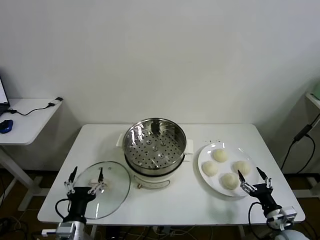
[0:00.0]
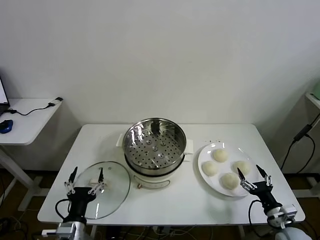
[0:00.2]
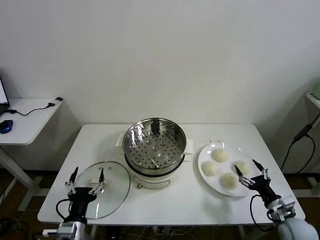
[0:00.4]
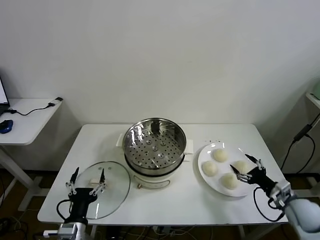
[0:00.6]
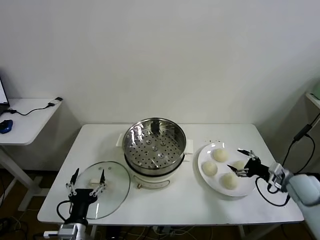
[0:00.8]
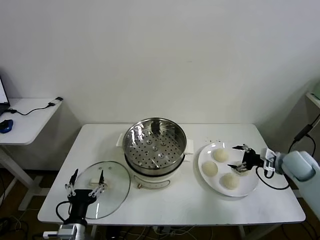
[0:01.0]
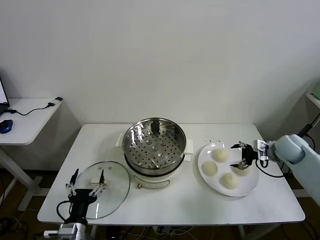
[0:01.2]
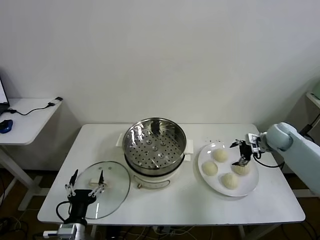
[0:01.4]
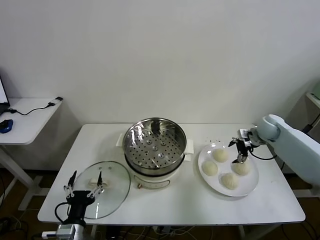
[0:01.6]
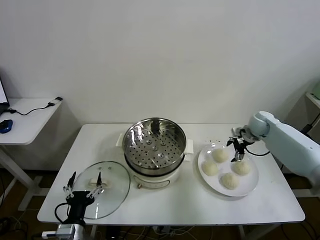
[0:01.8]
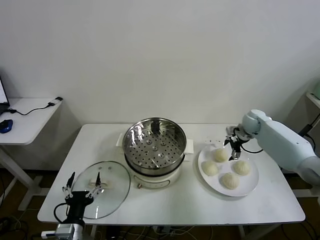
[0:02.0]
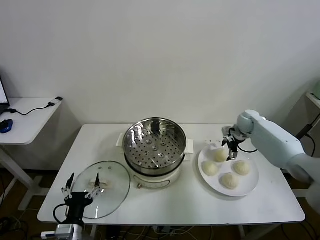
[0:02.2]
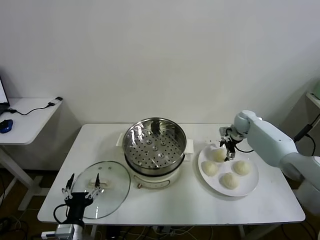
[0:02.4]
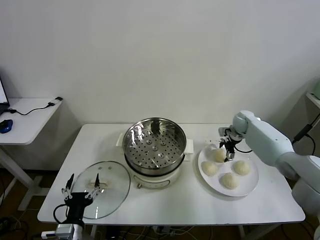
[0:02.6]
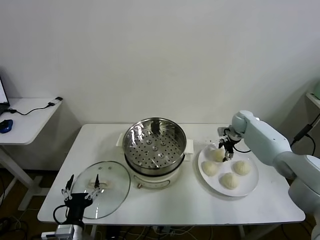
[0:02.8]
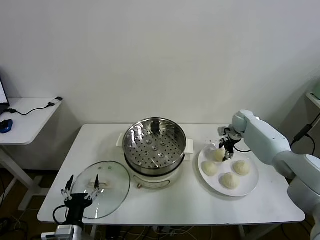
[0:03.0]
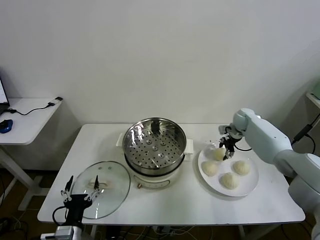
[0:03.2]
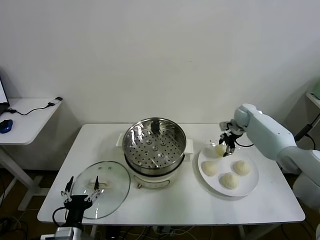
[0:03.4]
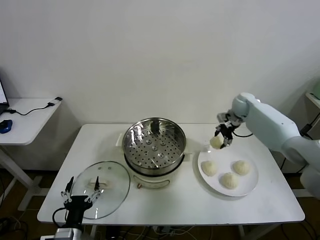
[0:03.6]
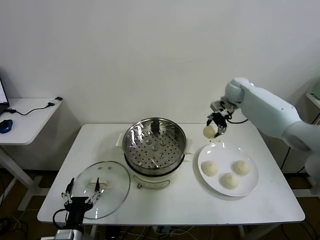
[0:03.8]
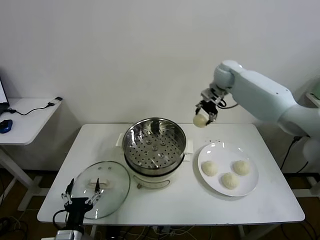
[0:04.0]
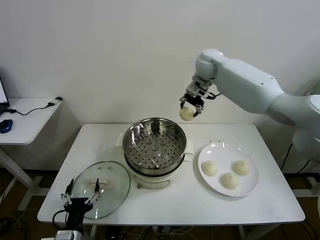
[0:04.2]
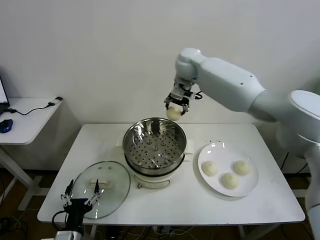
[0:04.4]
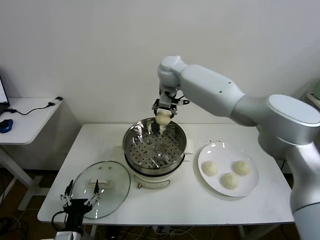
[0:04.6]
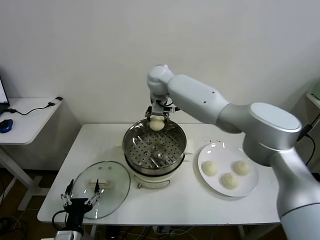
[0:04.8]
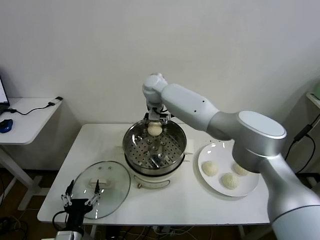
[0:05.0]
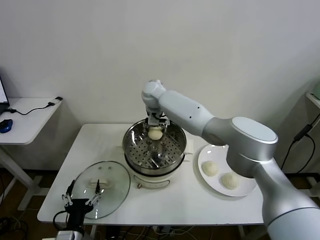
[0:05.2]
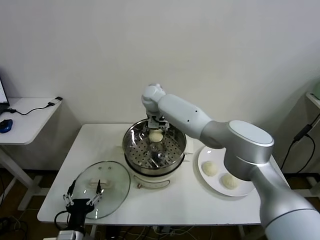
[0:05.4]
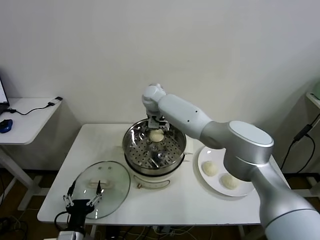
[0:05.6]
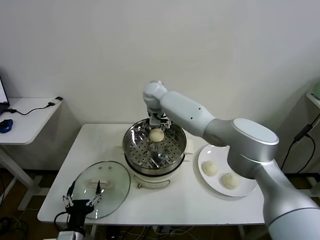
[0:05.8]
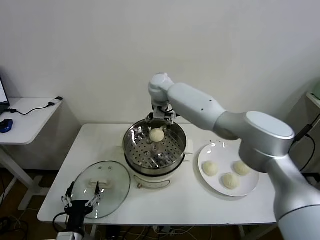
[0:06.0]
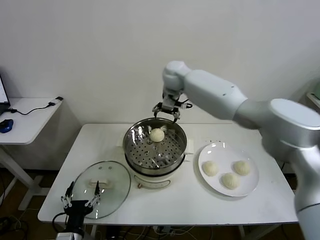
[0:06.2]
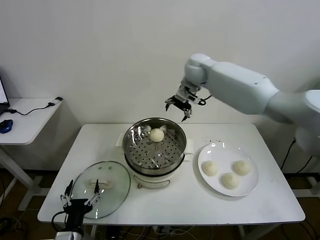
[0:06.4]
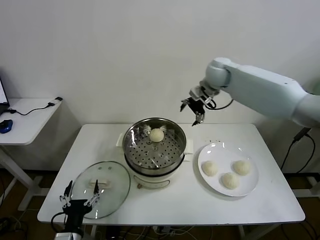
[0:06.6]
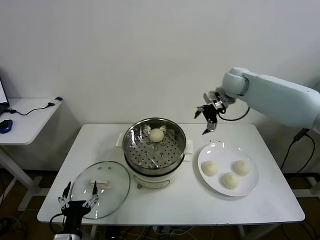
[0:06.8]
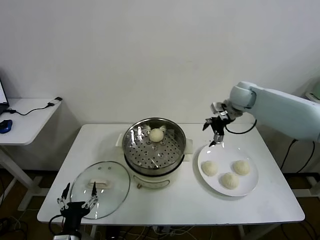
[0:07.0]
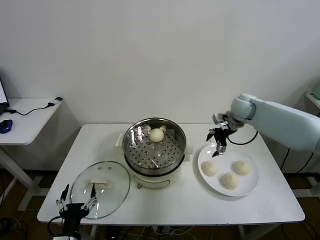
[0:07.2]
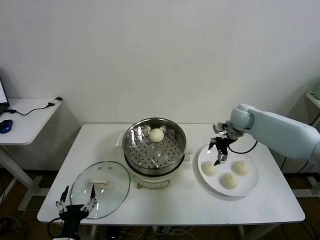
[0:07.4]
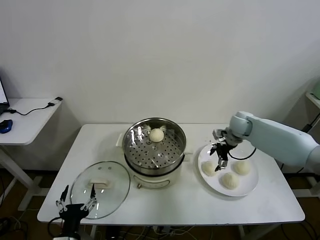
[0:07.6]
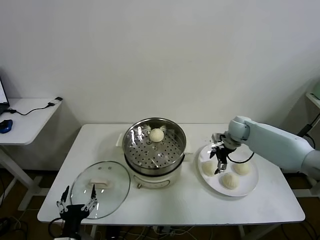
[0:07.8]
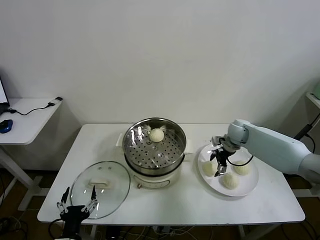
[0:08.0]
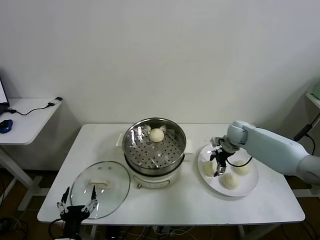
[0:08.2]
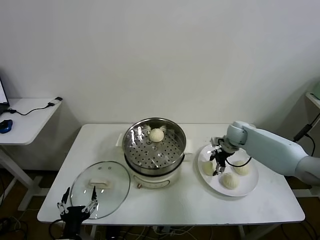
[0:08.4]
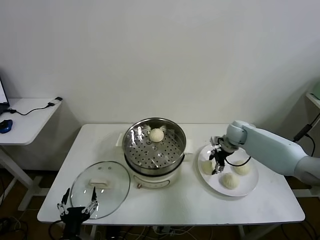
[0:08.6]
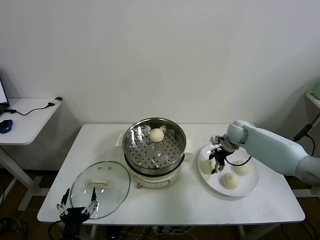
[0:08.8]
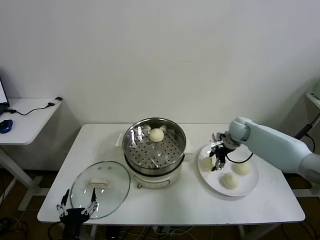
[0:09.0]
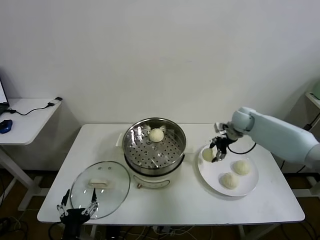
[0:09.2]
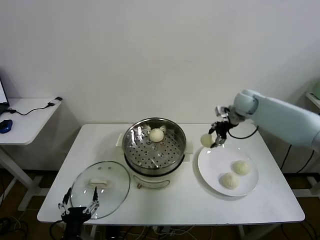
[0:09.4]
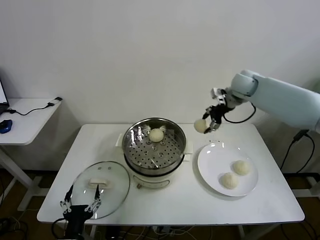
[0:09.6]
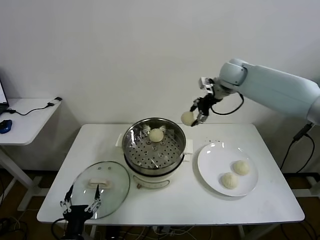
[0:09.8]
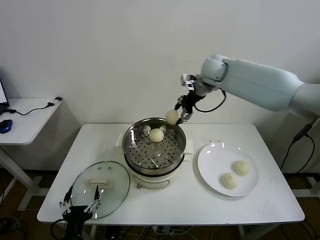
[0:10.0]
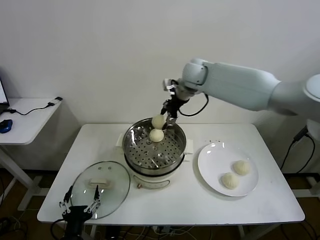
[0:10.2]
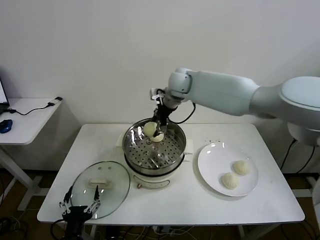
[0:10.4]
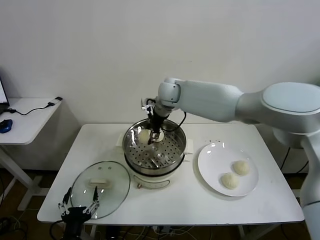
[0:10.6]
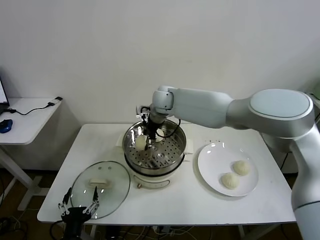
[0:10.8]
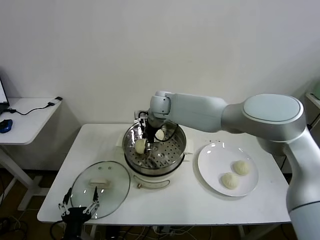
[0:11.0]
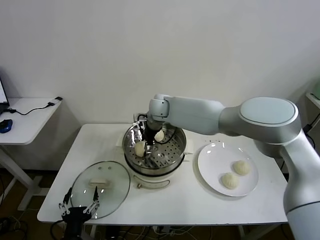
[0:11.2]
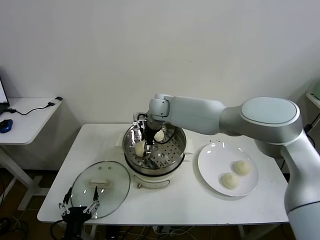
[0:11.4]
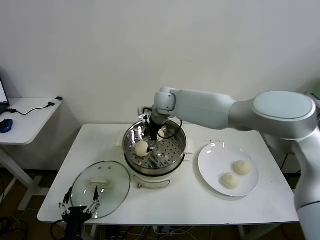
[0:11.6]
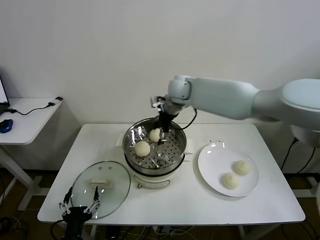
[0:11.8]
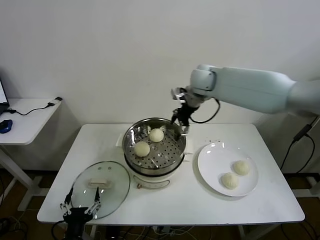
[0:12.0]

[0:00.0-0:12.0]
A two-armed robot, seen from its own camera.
Task of the whole recording: take steamed baozi put them in steamer then cover it.
Step, 0:00.0 to 0:03.0: Grasp the baozi in the plate with right gripper.
Step, 0:03.4 to 0:06.0: Place the baozi on the steamer with right gripper.
Step, 0:06.2 to 0:08.6: Grasp the baozi in the plate with right gripper.
Step, 0:08.8 to 0:11.8: Place the baozi on the steamer with right gripper.
0:01.6 to 0:03.0: The right gripper moves forward, roughly 5 cm, and closes.
0:03.0 to 0:04.4: The right gripper moves to the left and upward, about 40 cm.
0:04.4 to 0:06.0: The right gripper shifts approximately 5 cm downward, and opens up.
0:06.0 to 0:07.6: The right gripper goes approximately 35 cm to the right and downward.
0:07.6 to 0:09.0: The right gripper closes up.
0:09.0 to 0:10.4: The right gripper goes roughly 30 cm to the left and upward.
0:10.4 to 0:12.0: The right gripper travels to the right by roughly 10 cm, and opens up.

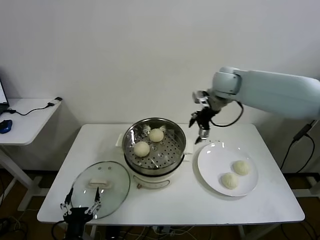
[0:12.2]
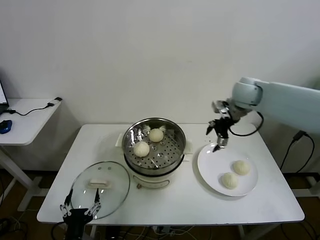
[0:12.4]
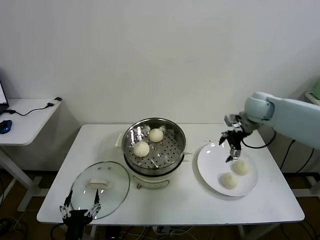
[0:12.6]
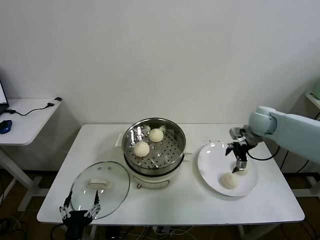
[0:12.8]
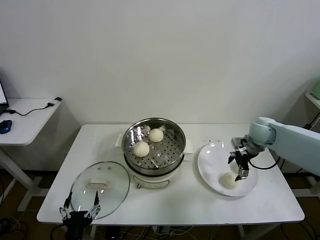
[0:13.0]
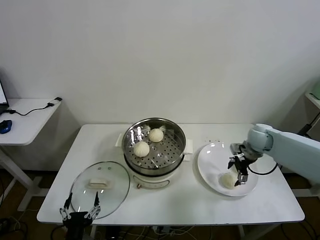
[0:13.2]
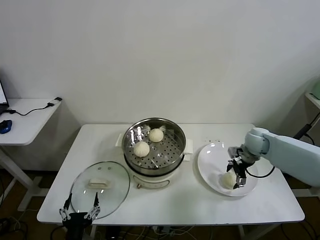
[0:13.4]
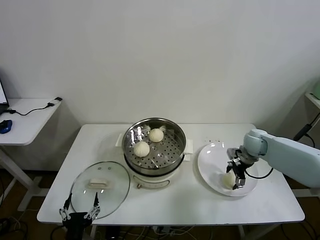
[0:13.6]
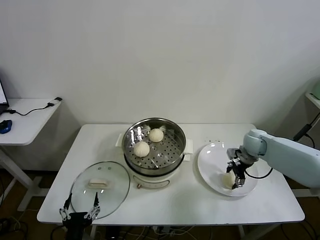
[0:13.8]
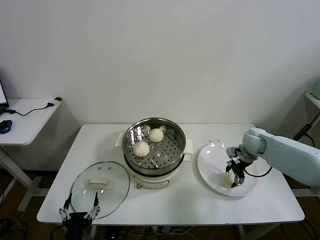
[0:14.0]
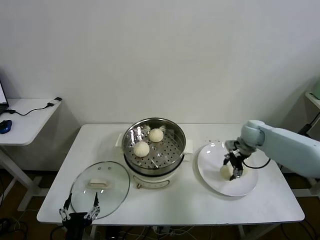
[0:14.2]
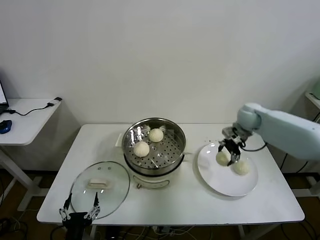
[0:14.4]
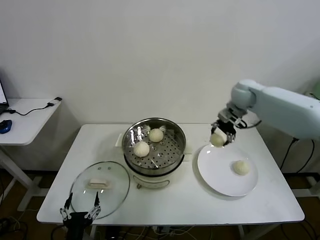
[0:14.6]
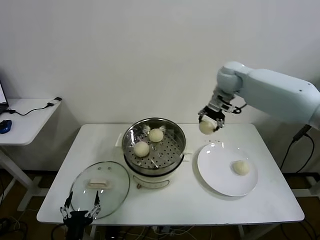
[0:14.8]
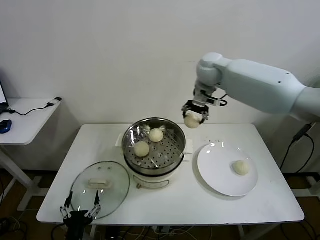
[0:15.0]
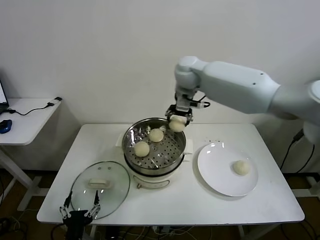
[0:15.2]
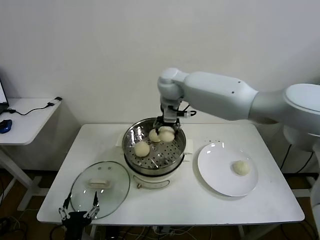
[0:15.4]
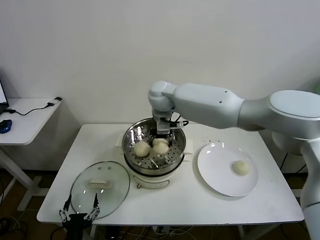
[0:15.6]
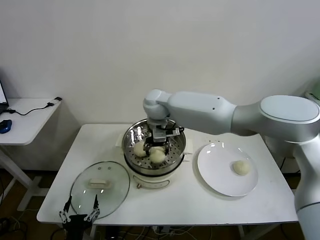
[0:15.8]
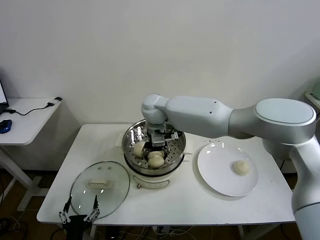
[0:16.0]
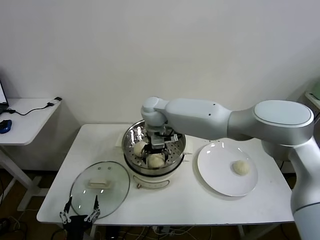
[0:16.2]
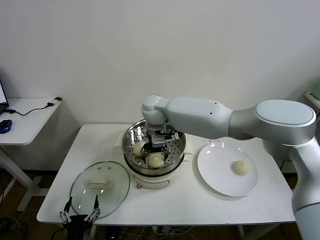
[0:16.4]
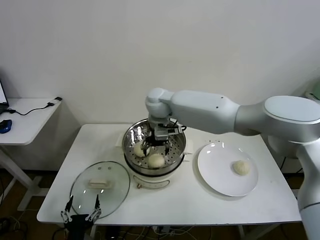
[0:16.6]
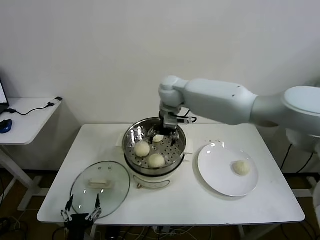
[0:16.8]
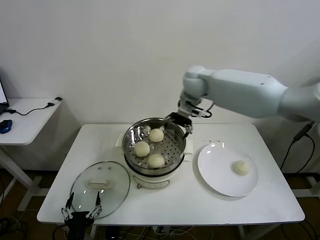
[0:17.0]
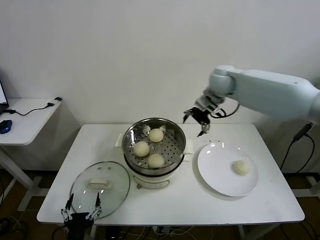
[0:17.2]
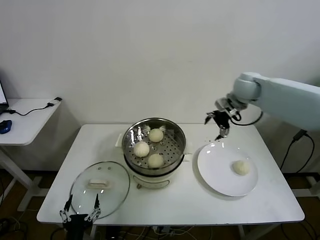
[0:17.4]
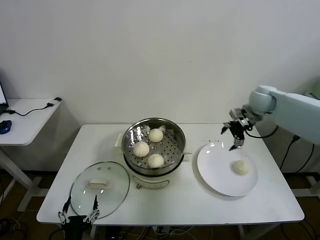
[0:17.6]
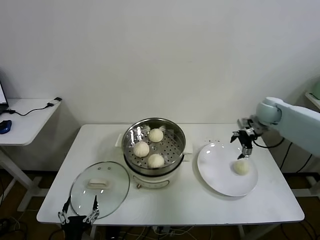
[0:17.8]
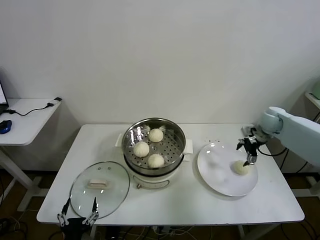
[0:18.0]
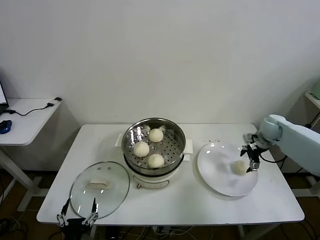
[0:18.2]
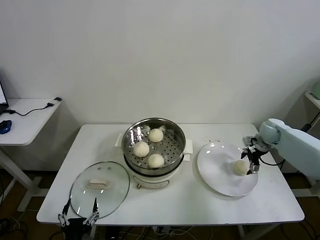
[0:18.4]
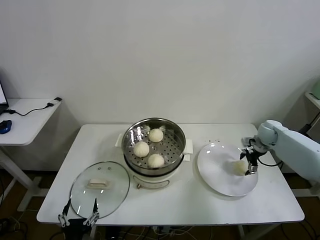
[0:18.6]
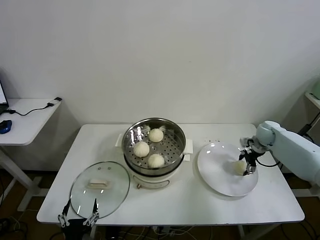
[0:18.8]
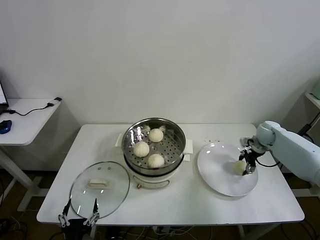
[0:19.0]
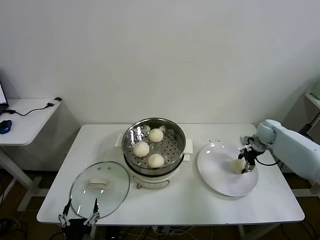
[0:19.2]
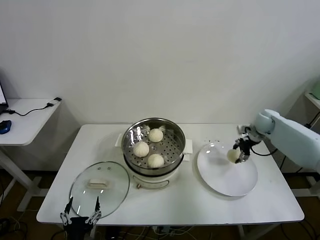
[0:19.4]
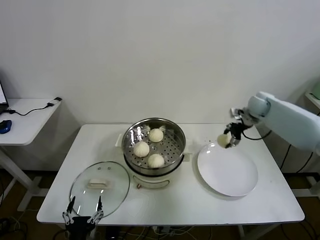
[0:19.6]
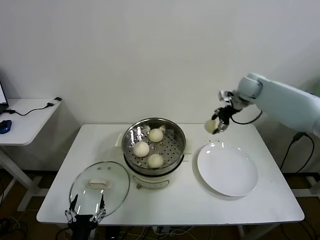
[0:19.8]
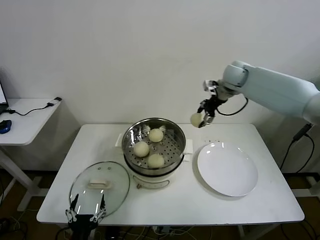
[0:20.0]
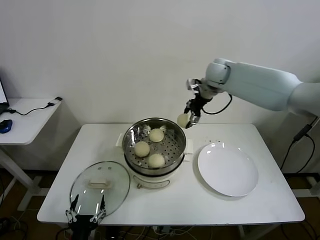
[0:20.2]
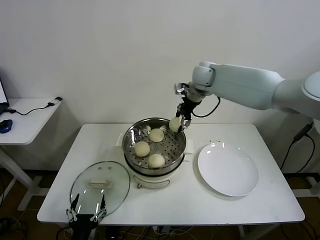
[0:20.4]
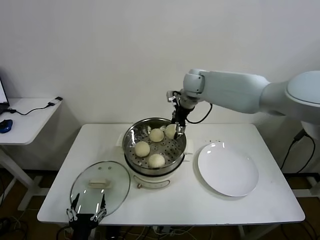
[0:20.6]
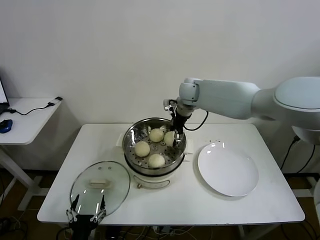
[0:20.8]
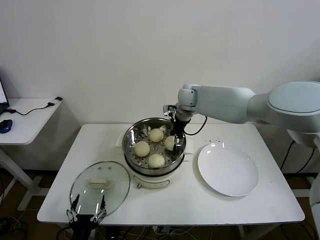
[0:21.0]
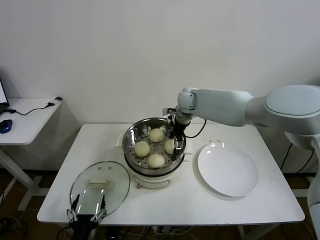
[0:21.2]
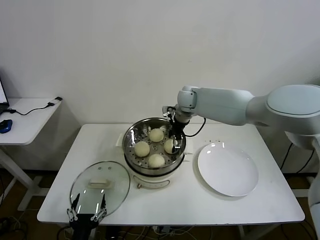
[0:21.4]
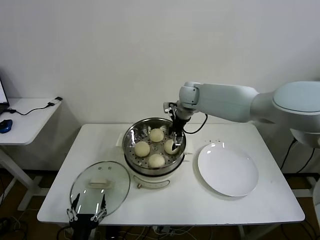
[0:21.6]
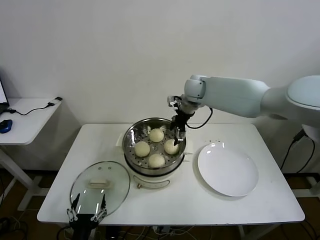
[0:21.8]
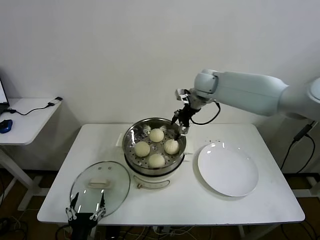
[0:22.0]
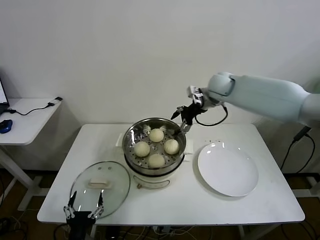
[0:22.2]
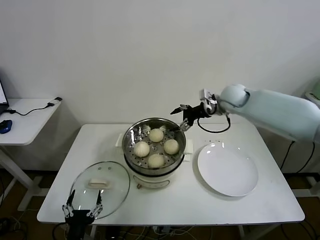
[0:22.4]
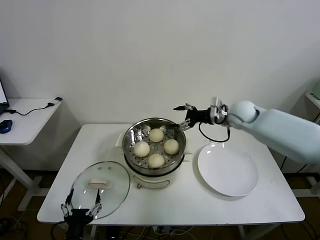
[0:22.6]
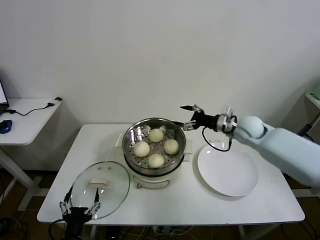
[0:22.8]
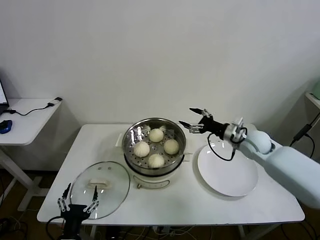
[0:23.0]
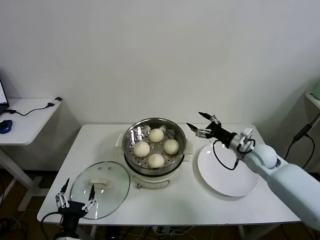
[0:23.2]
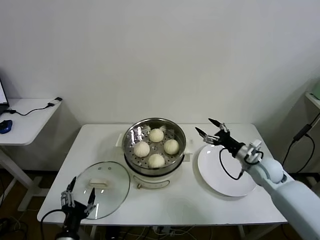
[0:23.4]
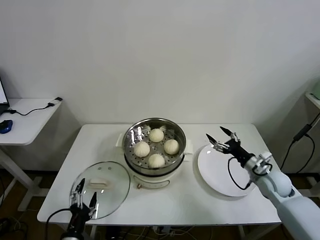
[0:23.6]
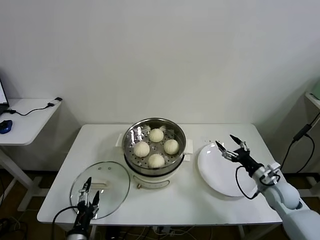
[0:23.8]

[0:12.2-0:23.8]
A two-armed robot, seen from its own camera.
Task of the whole recording: take steamed baozi put them in steamer then cover it.
Step, 0:12.2 to 0:13.8: Grasp the baozi in the plate with right gripper.
Step, 0:14.0 to 0:16.8: Place the baozi on the steamer with right gripper.
Step, 0:17.0 to 0:19.0: Grasp the baozi in the plate with right gripper.
Step, 0:19.2 to 0:21.8: Place the baozi on the steamer with right gripper.
0:12.2 to 0:13.6: The right gripper heads downward and to the right, covering about 25 cm.
0:13.6 to 0:15.0: The right gripper shifts about 35 cm upward and to the left, and closes.
0:15.0 to 0:16.6: The right gripper is displaced to the left and downward by about 15 cm, and opens.
0:16.6 to 0:18.0: The right gripper moves to the right, approximately 40 cm.
0:18.0 to 0:19.4: The right gripper moves some 10 cm downward and comes back, and closes its fingers.
0:19.4 to 0:21.0: The right gripper moves to the left, approximately 30 cm.
0:21.0 to 0:22.4: The right gripper heads to the right, covering some 15 cm, and opens.
0:22.4 to 0:23.8: The right gripper heads downward, backward and to the right, covering approximately 35 cm.
